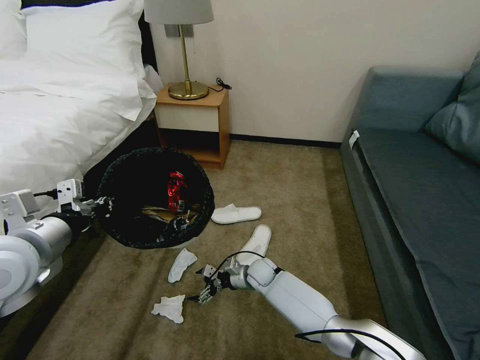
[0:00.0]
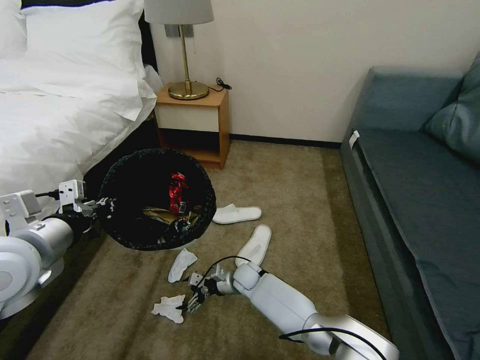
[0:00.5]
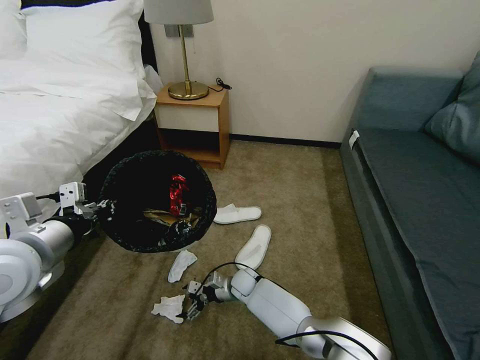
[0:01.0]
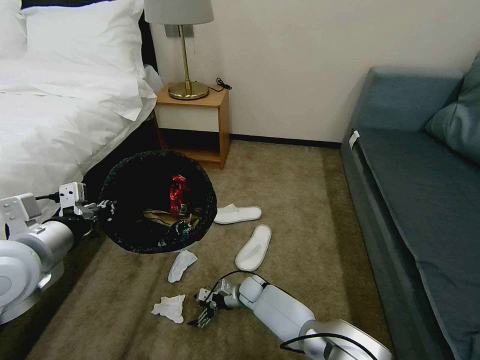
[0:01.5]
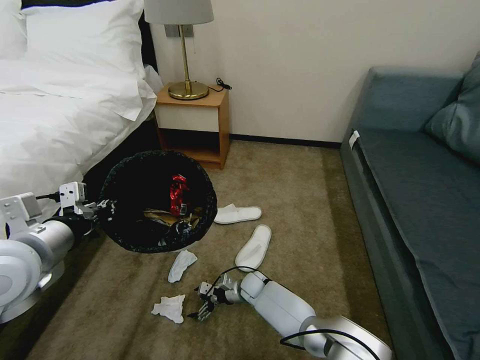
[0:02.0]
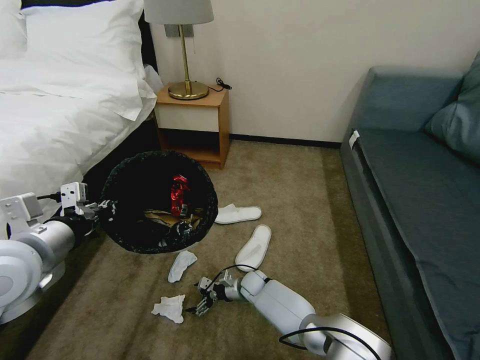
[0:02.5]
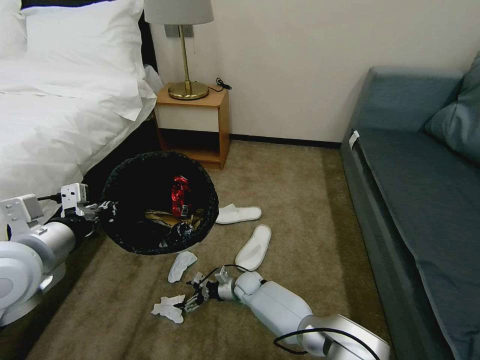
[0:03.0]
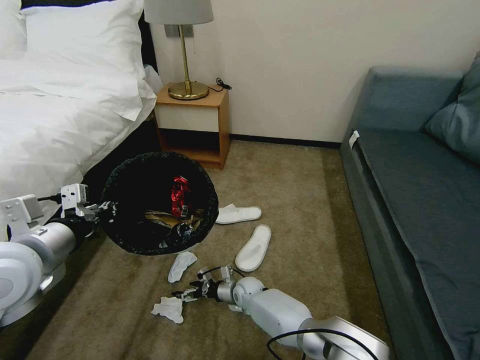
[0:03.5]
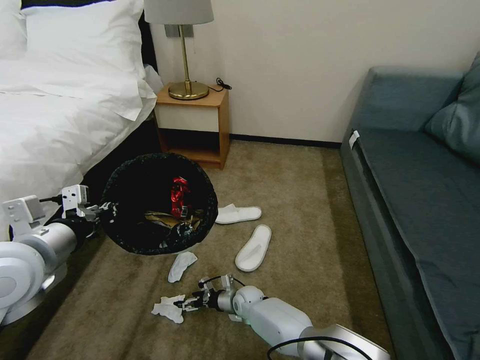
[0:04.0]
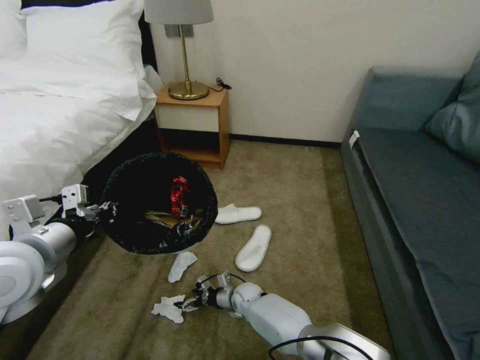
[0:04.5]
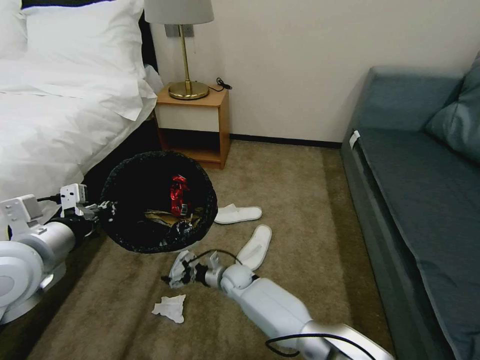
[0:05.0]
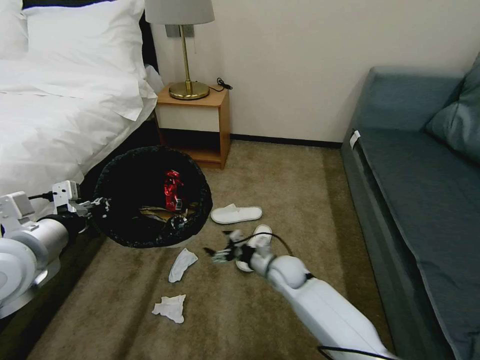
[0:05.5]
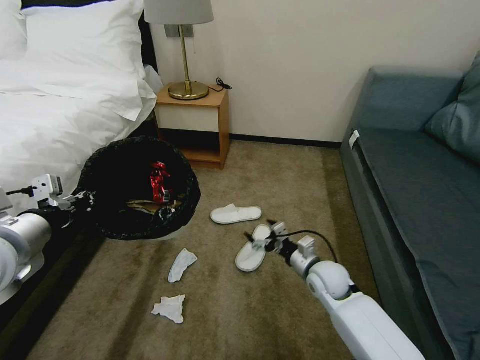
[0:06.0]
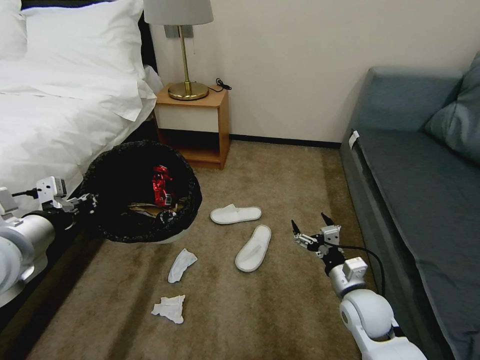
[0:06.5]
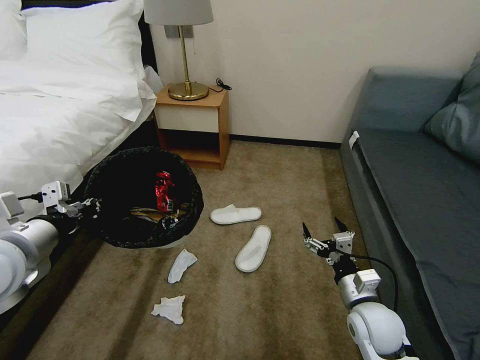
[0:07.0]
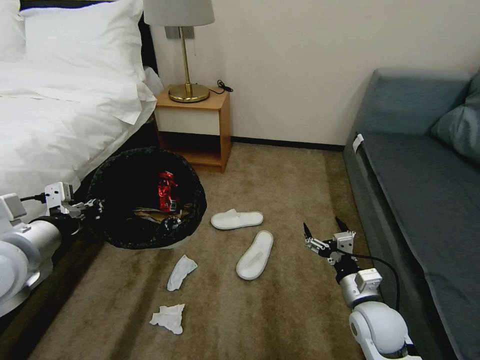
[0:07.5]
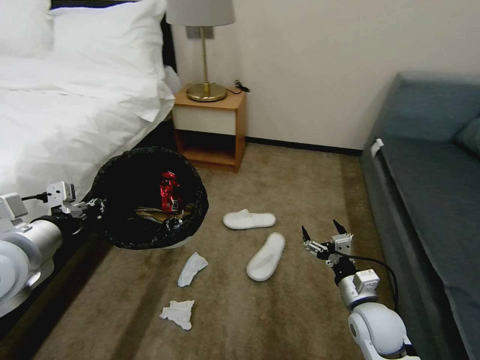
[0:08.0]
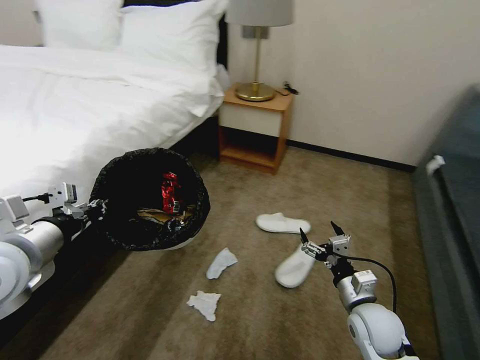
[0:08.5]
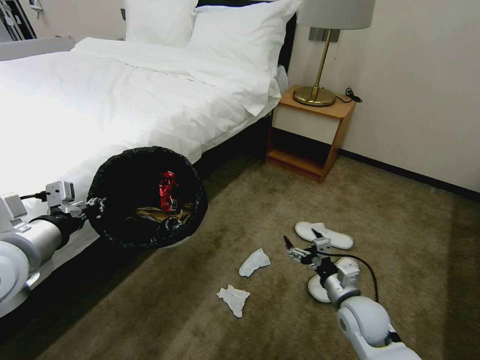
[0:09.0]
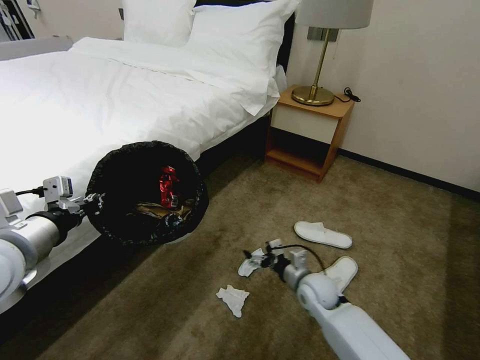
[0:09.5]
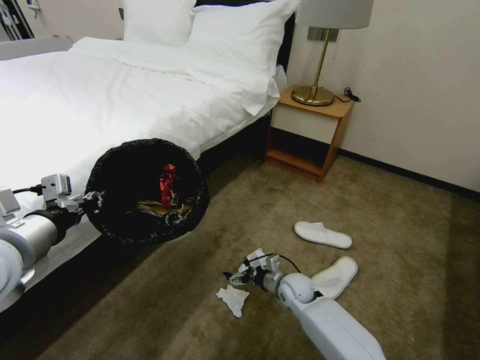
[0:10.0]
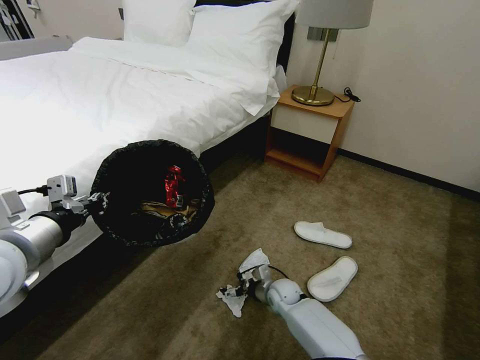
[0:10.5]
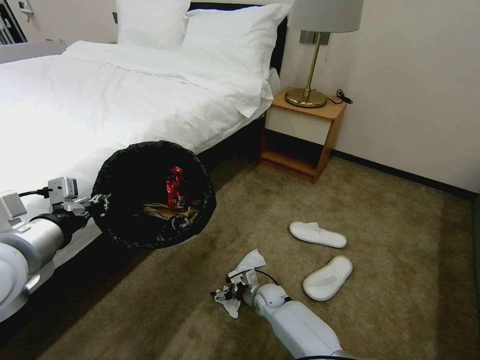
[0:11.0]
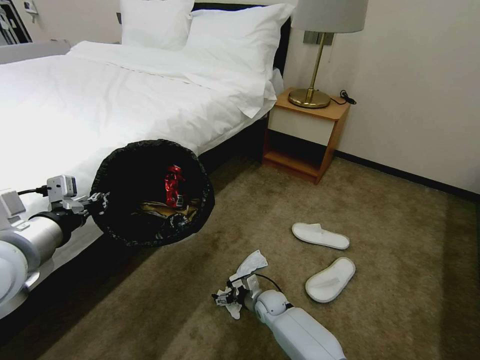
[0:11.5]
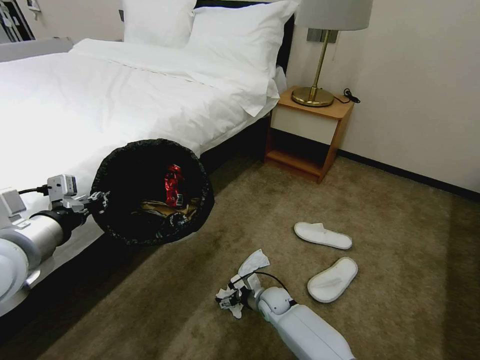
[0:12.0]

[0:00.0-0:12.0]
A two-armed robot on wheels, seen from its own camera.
Task of the whole recording: Pick up the trash bin, then pick up the garbage on the floor and place it into the trash bin.
0:00.0 to 0:02.0: The right gripper heads downward, covering some 5 cm.
0:04.0 to 0:06.0: The right gripper heads upward and to the right, covering some 30 cm.
0:06.0 to 0:08.0: The right gripper heads backward and to the right, covering some 10 cm.
0:08.0 to 0:10.0: The right gripper goes approximately 20 cm to the left, forward and downward.
0:10.0 to 0:12.0: The right gripper goes about 10 cm downward and to the left.

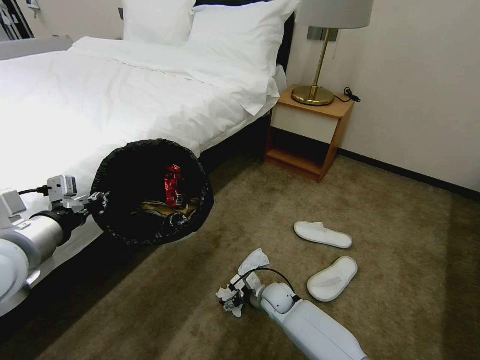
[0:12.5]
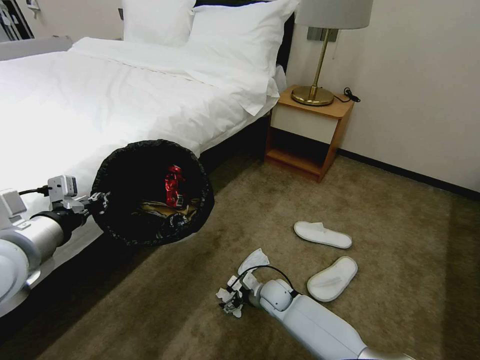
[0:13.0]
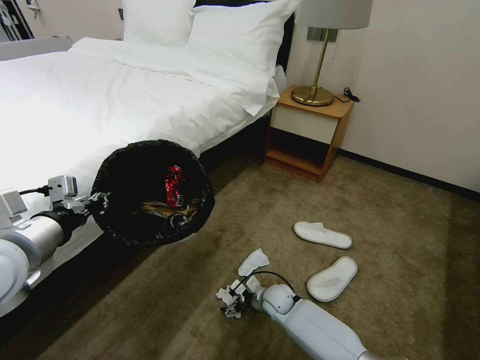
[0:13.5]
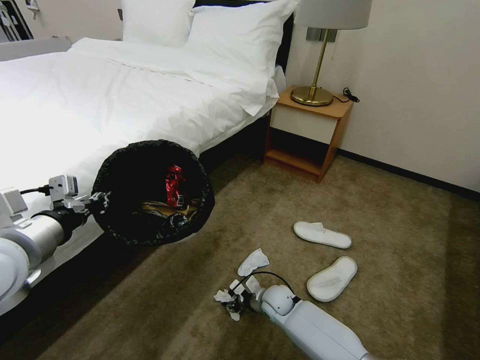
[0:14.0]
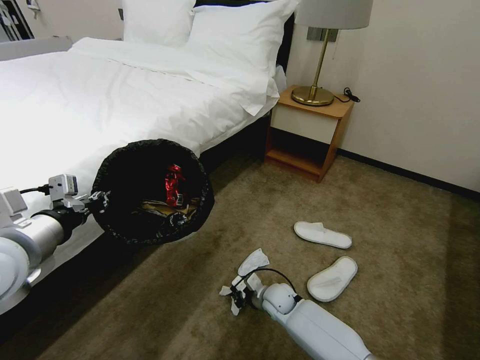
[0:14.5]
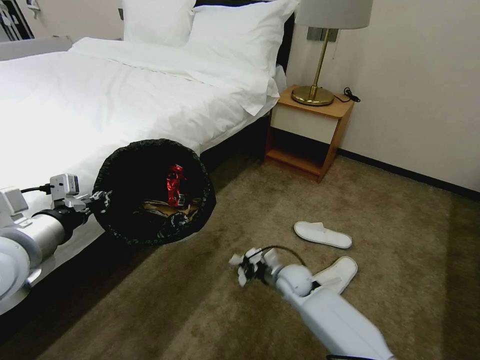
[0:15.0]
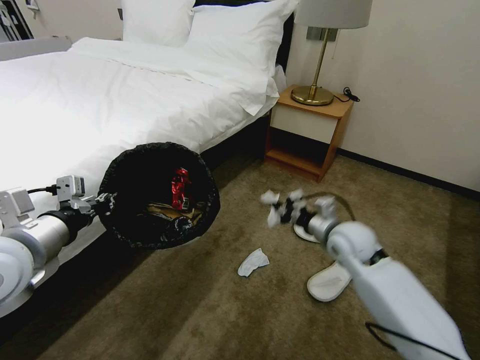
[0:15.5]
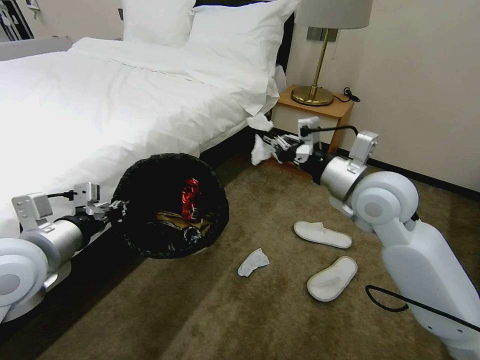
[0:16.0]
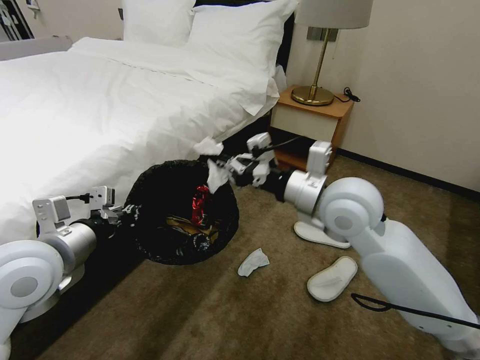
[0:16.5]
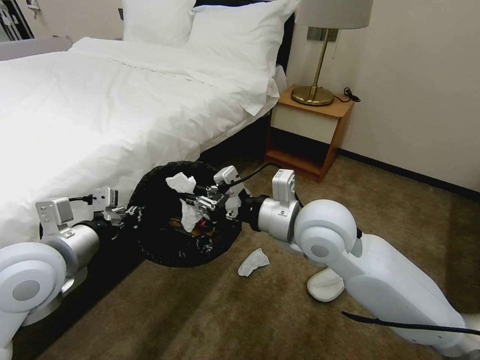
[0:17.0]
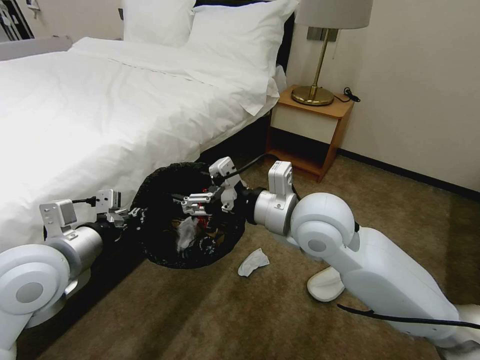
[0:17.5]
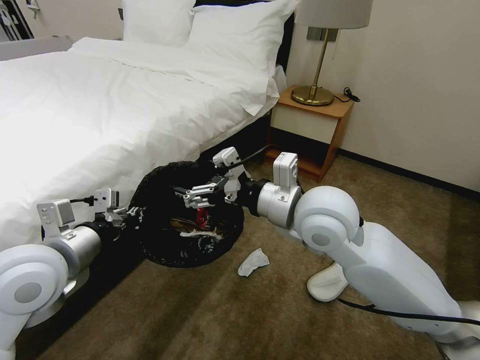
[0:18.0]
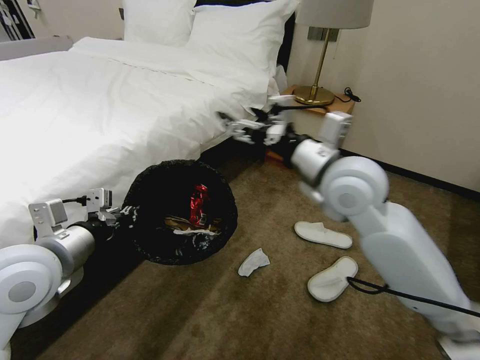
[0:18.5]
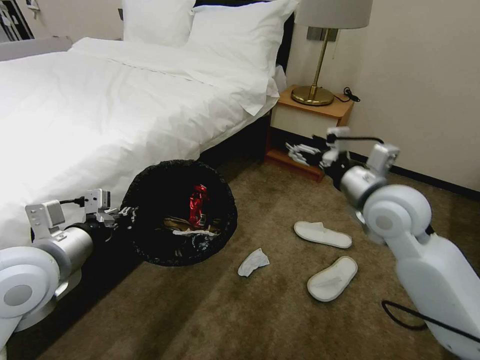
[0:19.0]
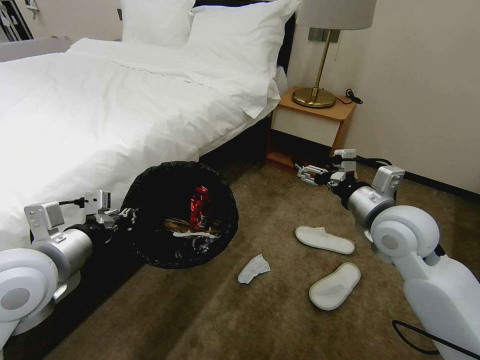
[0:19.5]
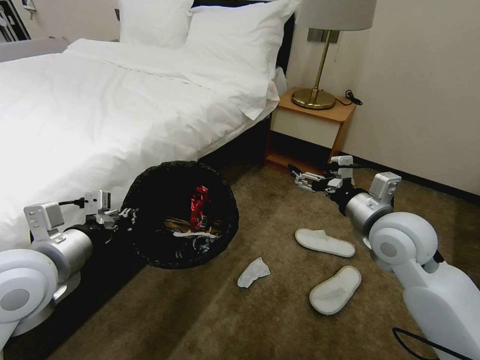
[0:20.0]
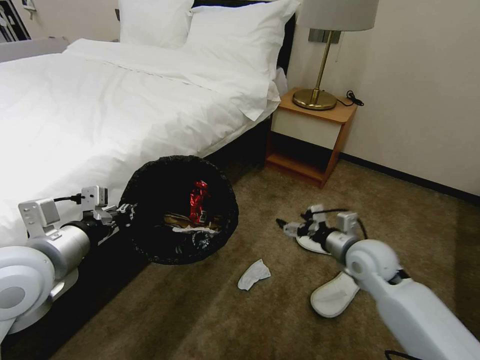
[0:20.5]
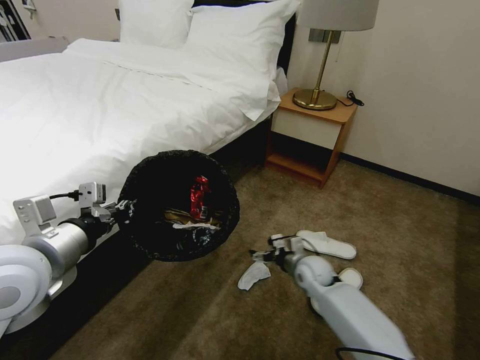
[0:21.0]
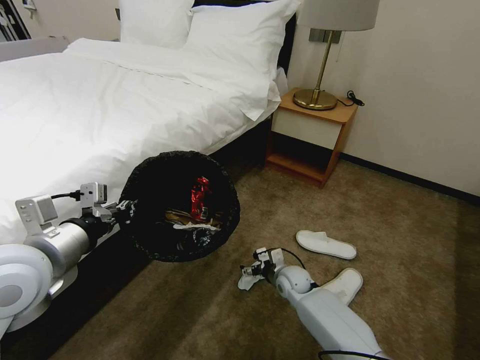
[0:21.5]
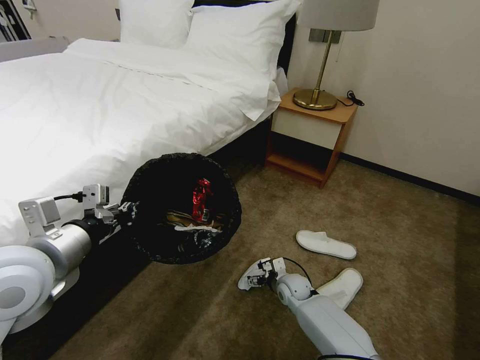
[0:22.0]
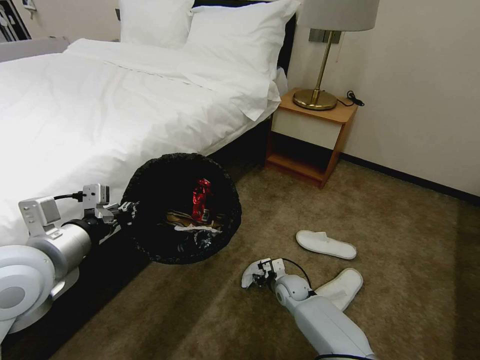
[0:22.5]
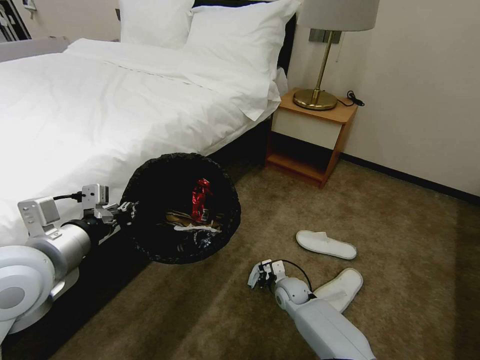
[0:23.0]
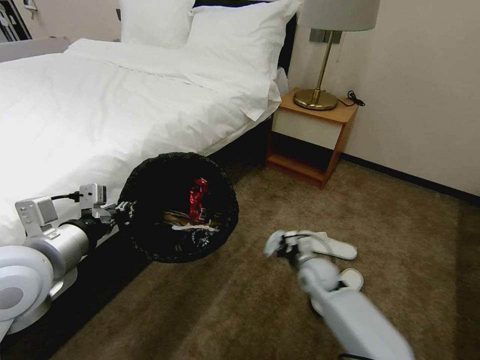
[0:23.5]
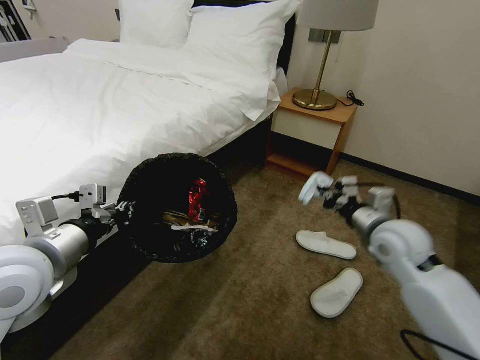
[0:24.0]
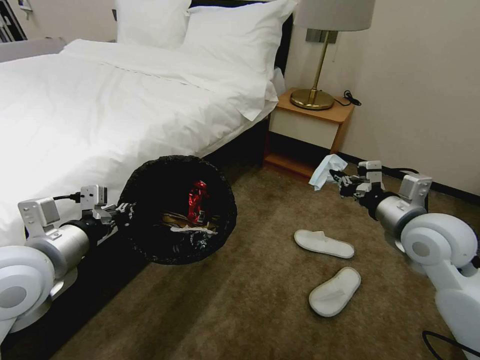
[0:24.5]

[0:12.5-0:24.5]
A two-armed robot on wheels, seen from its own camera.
Task of the whole recording: Pick up the trash bin, then pick up the garbage on the floor and place it into the trash bin.
0:12.5 to 0:14.5: The right gripper closes up.
0:14.5 to 0:16.5: The right gripper moves upward, some 40 cm.
0:16.5 to 0:18.5: The right gripper opens.
0:18.5 to 0:20.5: The right gripper heads downward and to the right, covering some 25 cm.
0:20.5 to 0:22.5: The right gripper goes some 30 cm downward and to the left, and closes.
0:22.5 to 0:24.5: The right gripper travels upward and to the right by about 40 cm, and closes its fingers.

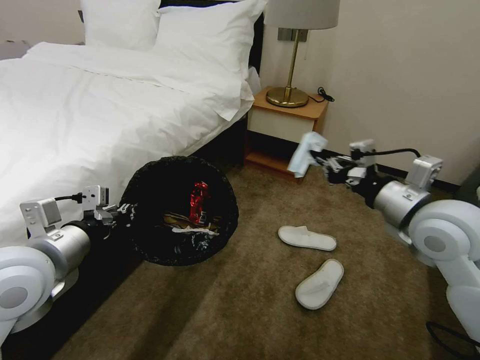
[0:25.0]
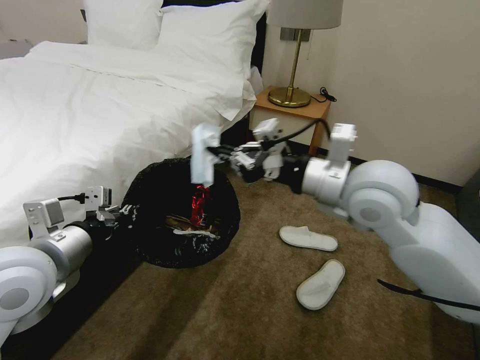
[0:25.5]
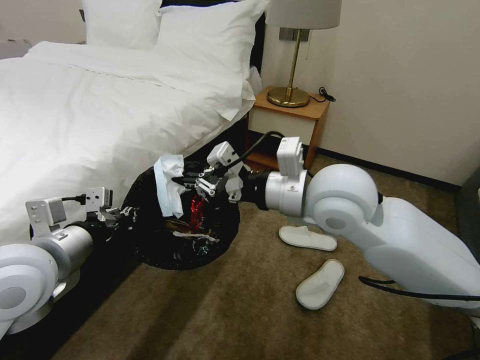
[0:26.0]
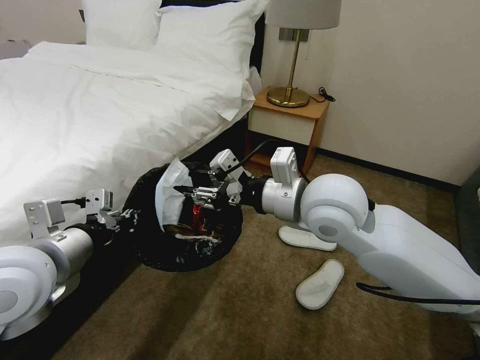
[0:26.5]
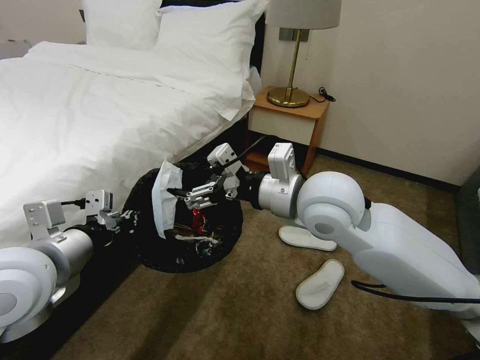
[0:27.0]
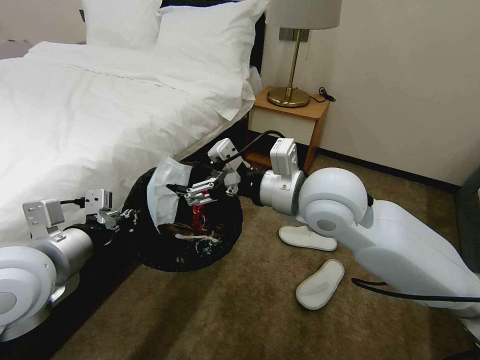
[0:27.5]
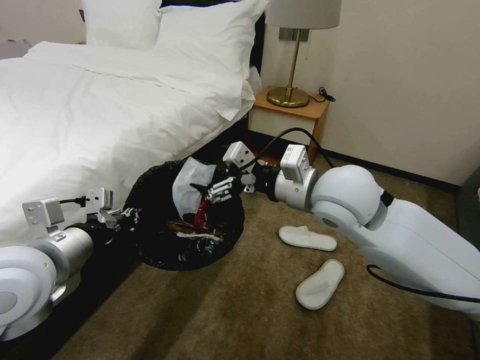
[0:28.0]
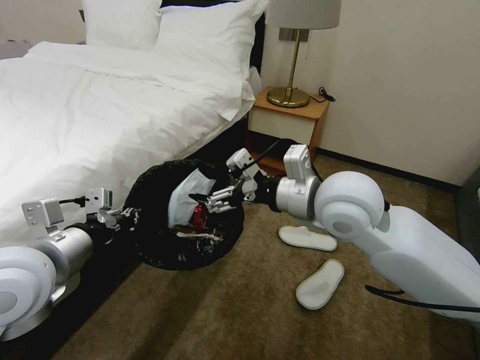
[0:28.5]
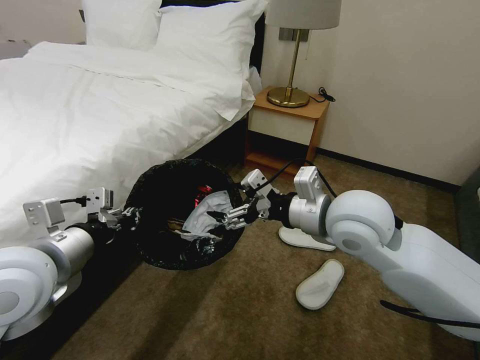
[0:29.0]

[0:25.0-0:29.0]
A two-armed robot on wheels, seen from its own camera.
Task of the whole recording: Pick up the trash bin, then pick up the garbage on the floor and place it into the trash bin.
0:25.0 to 0:27.0: The right gripper shifts approximately 20 cm to the left, and opens.
0:27.0 to 0:29.0: The right gripper shifts by roughly 5 cm.
